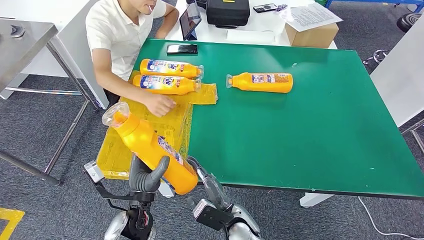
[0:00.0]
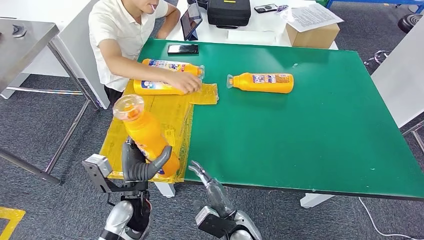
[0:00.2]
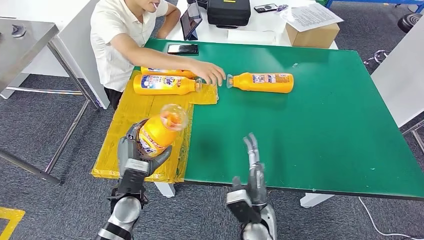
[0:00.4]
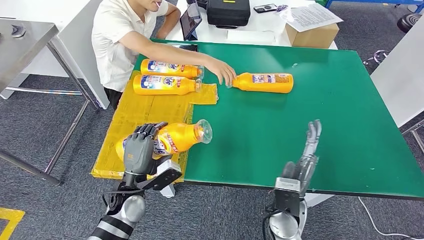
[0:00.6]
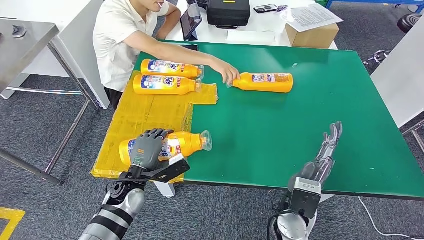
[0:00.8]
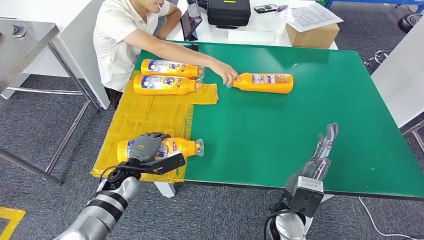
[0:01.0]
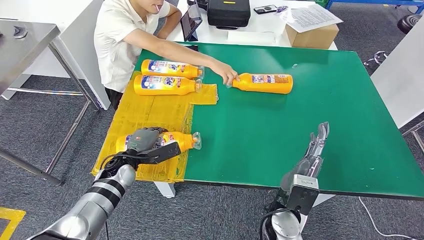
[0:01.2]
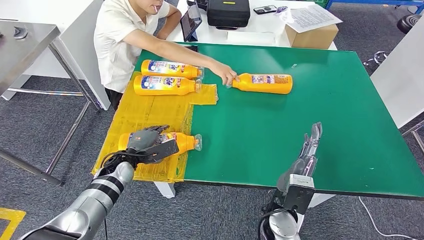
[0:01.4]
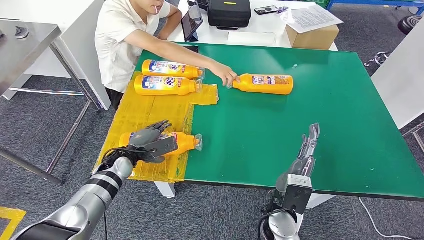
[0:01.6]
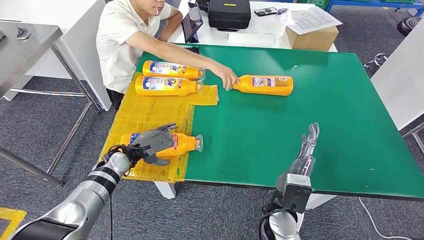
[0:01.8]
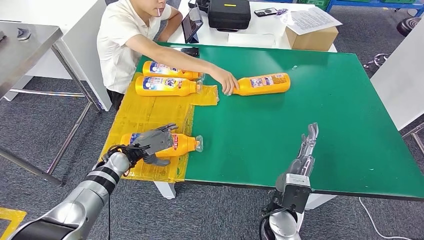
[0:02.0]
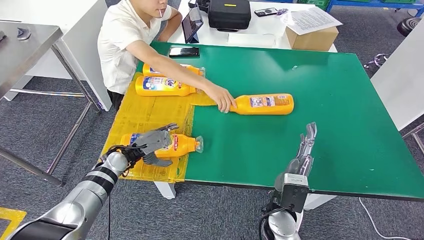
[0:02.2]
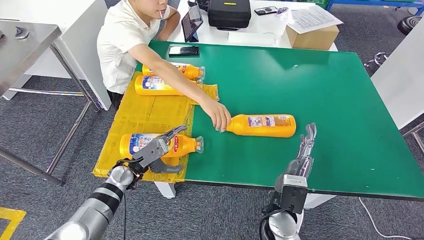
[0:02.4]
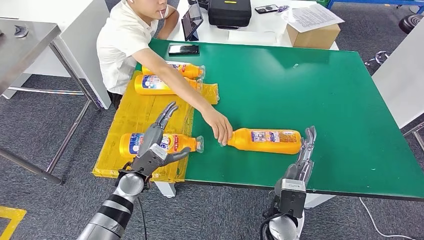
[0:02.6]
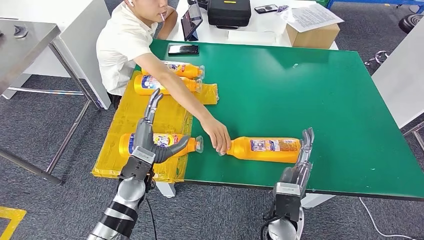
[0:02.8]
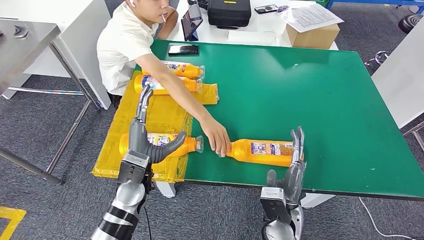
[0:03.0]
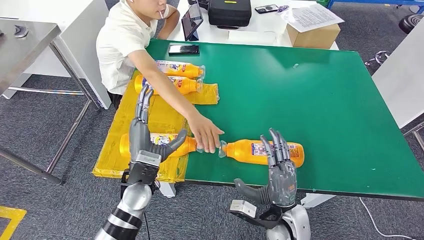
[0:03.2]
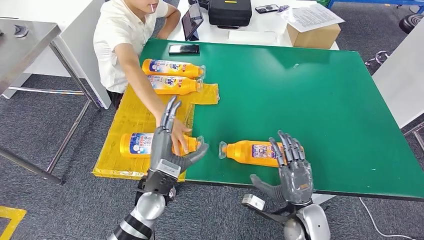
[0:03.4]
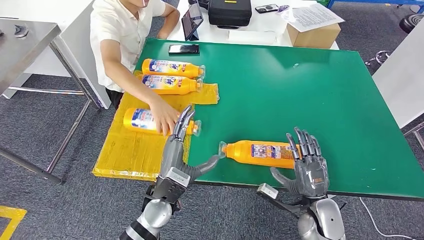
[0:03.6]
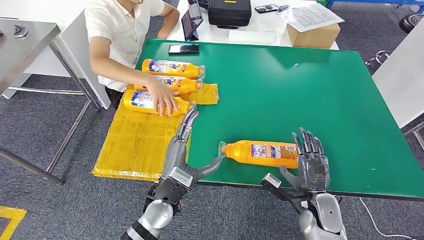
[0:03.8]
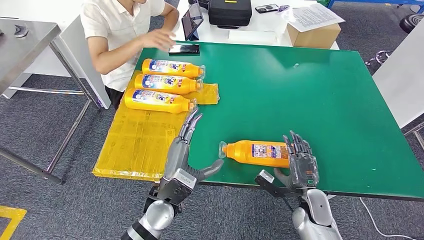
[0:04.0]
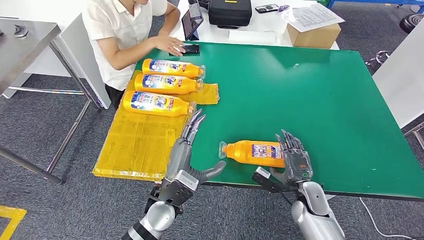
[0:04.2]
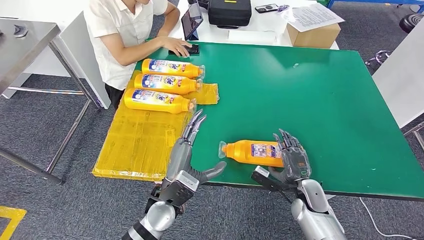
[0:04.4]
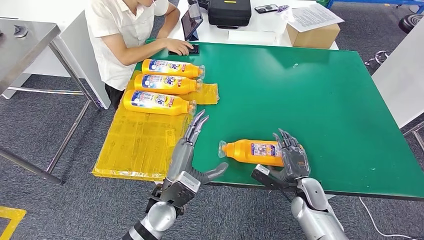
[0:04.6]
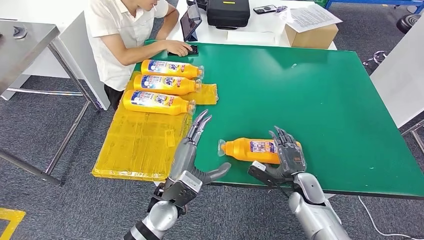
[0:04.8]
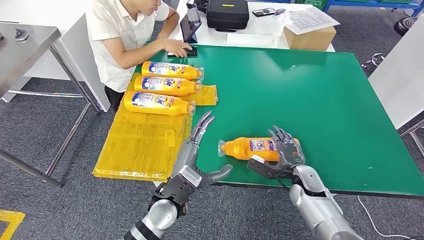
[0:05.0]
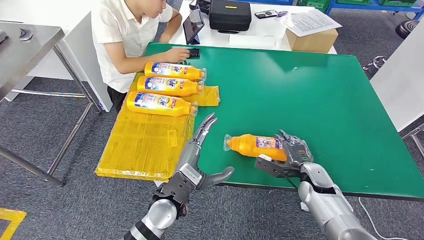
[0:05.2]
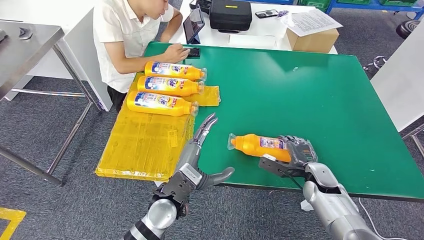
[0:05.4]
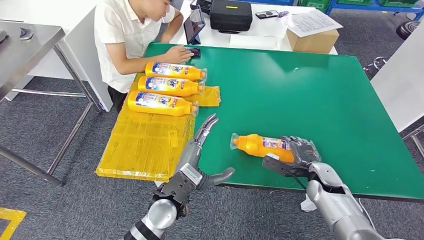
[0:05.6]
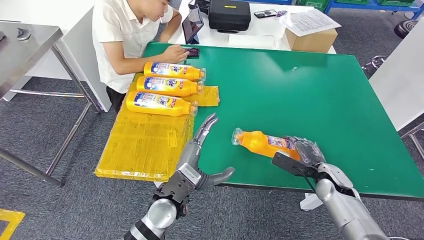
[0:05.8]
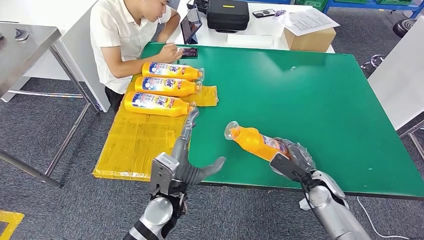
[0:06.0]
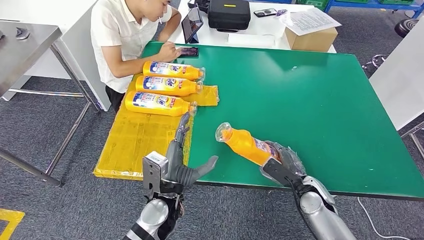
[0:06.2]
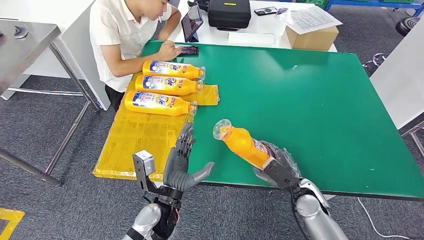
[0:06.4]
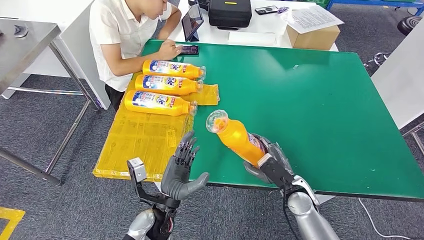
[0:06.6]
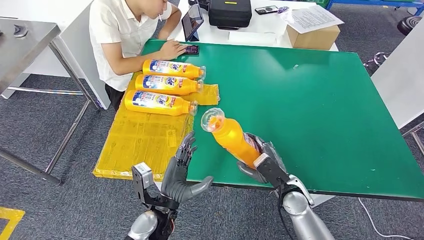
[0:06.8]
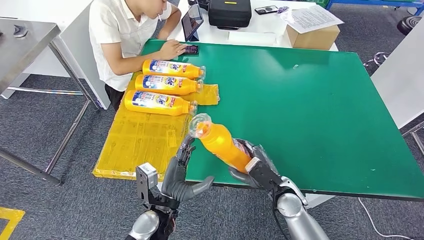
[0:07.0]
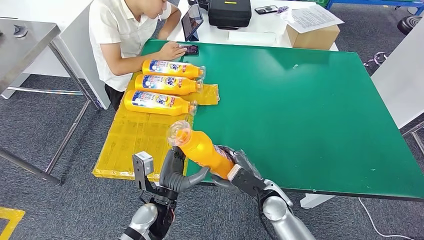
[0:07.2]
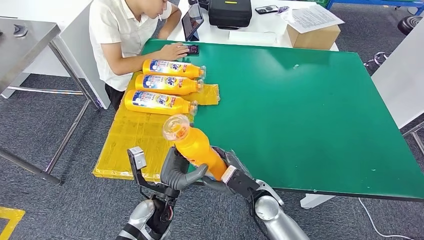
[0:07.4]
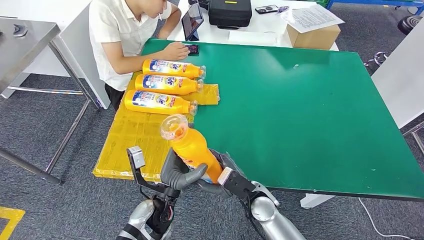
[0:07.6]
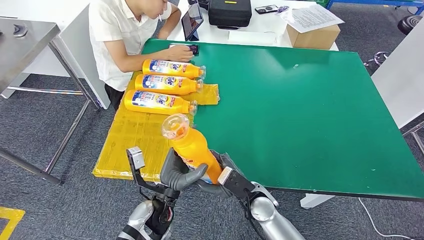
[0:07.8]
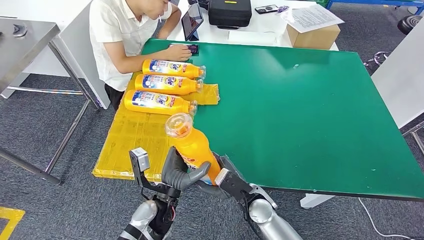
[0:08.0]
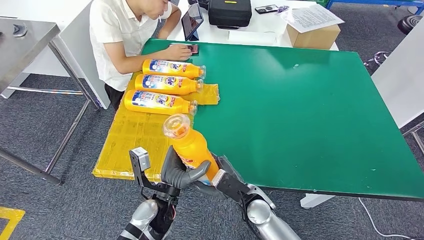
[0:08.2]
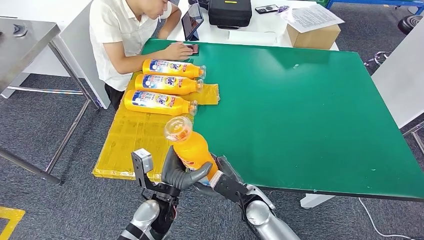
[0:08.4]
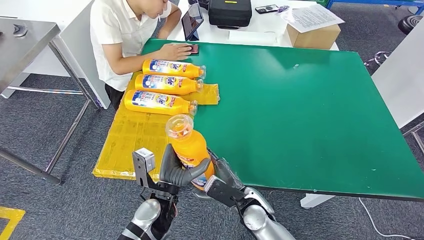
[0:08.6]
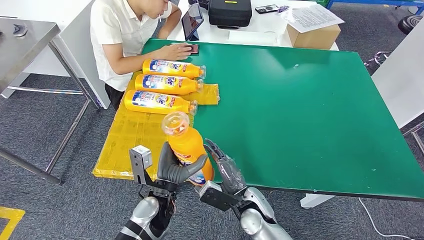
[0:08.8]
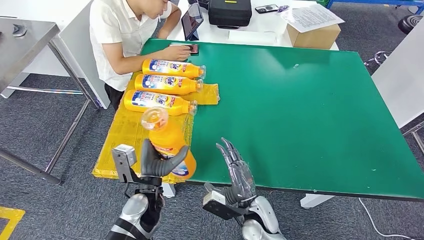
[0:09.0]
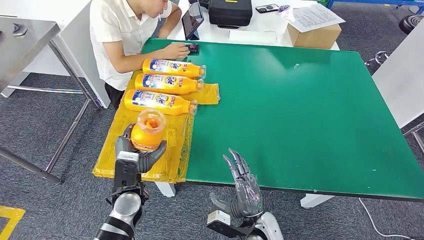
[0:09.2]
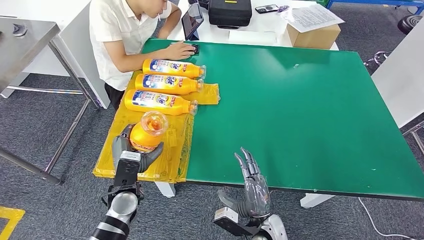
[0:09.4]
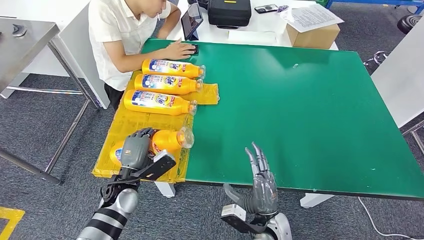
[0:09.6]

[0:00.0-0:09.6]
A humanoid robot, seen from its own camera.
Step, 0:00.0 to 0:02.8: Flip the fast-moving consumer goods bottle to the front side.
Step, 0:03.0 to 0:07.2: Pick up the fast-moving consumer goods bottle from the table.
0:06.4 to 0:08.0: The right hand is displaced to the left by roughly 15 cm.
0:08.0 to 0:09.6: The left hand shifts approximately 15 cm to the left and forward. The right hand is displaced backward by approximately 5 cm.

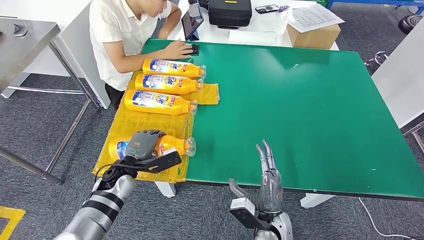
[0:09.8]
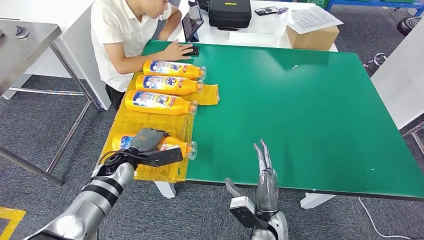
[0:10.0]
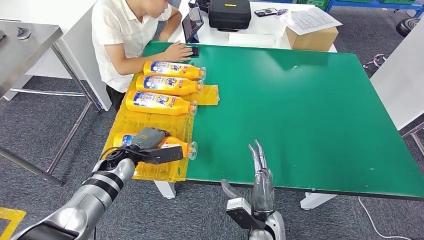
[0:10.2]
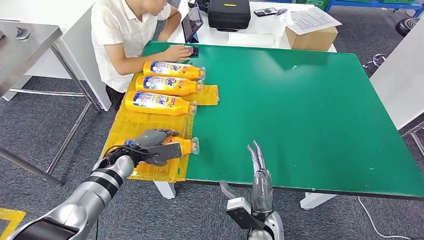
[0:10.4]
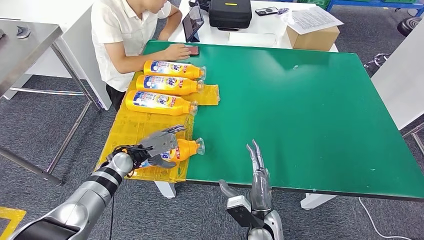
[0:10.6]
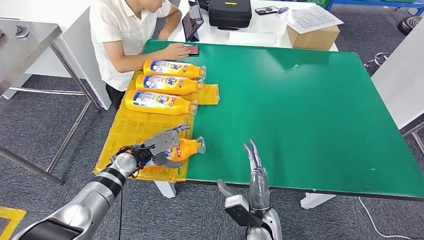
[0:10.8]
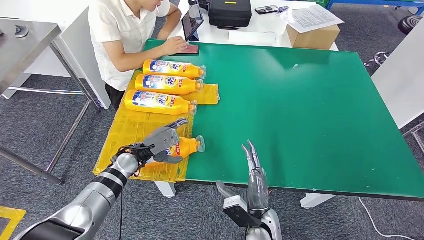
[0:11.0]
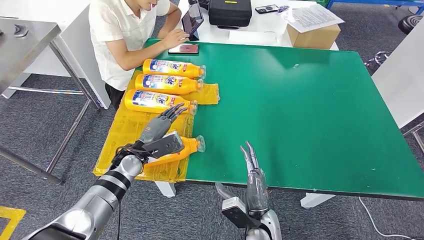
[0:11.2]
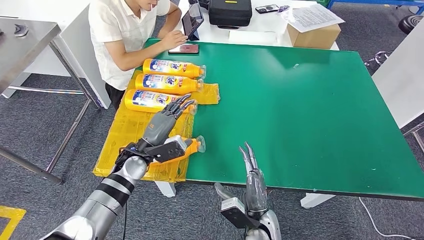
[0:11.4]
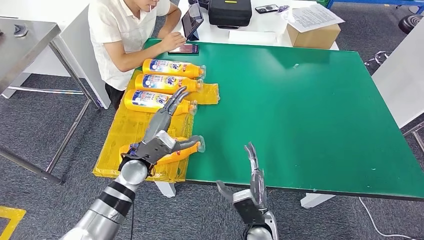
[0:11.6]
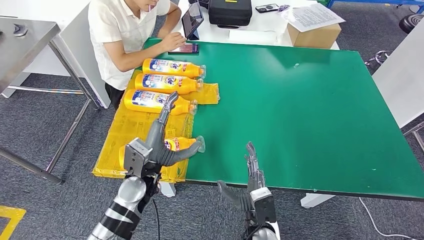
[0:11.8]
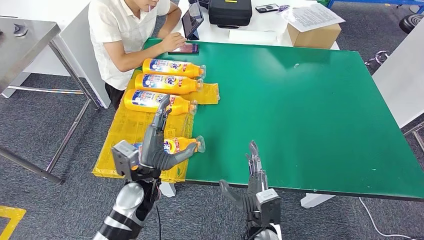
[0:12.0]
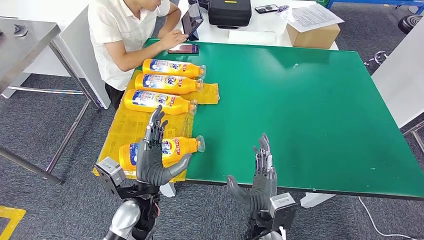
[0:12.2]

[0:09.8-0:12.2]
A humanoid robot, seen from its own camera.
Step, 0:09.8 to 0:12.2: Flip the fast-moving consumer goods bottle to the front side.
0:11.0 to 0:12.2: The right hand heads upward, covering about 5 cm, while the left hand goes about 15 cm backward and to the right.
